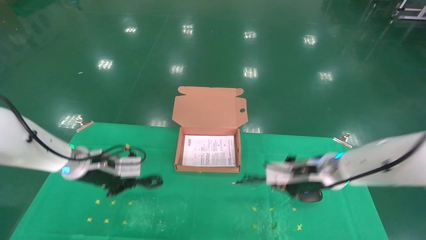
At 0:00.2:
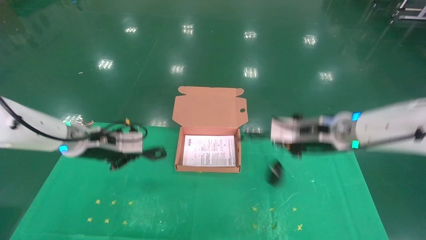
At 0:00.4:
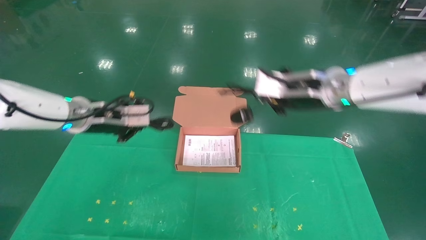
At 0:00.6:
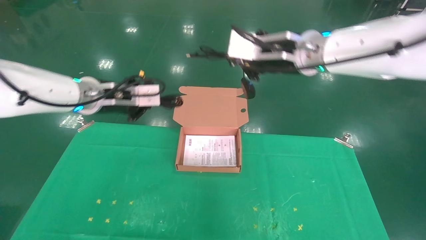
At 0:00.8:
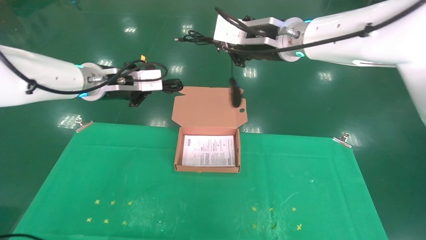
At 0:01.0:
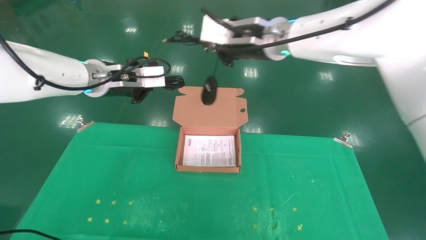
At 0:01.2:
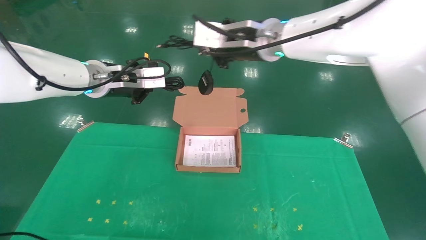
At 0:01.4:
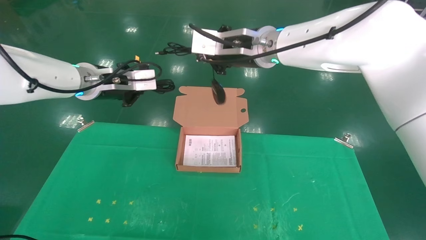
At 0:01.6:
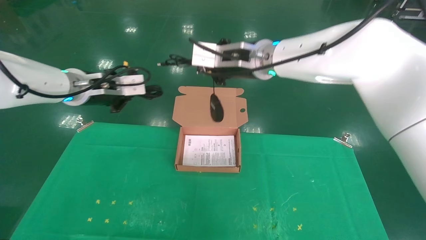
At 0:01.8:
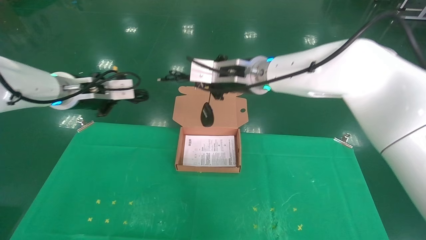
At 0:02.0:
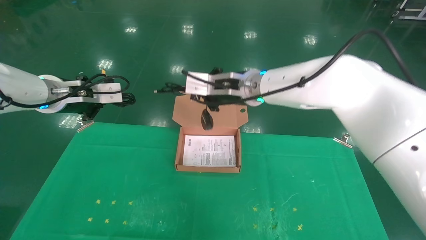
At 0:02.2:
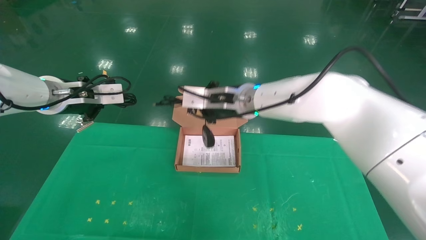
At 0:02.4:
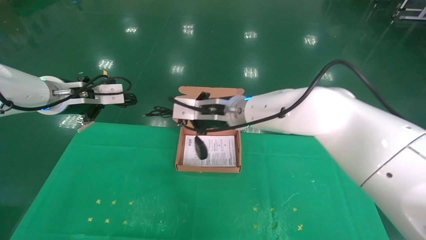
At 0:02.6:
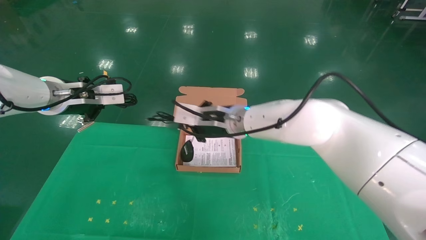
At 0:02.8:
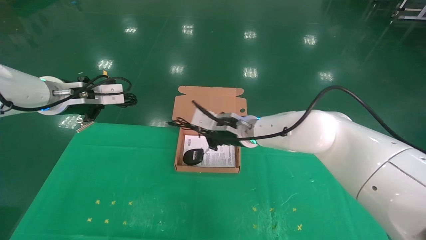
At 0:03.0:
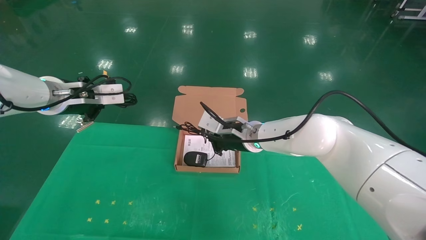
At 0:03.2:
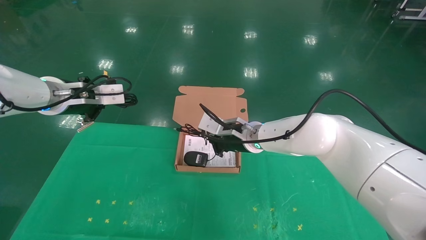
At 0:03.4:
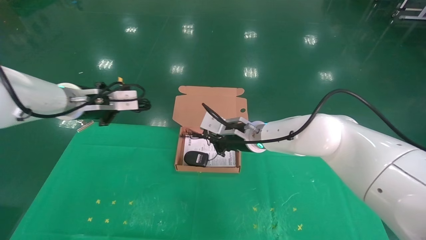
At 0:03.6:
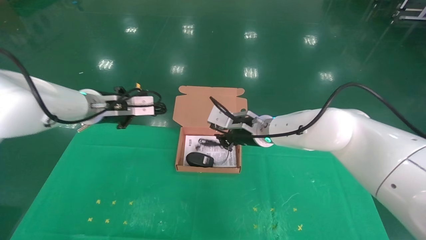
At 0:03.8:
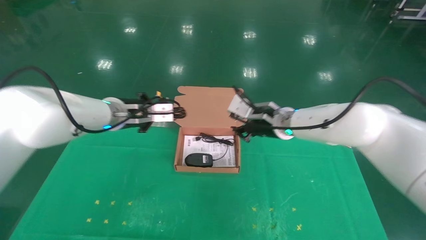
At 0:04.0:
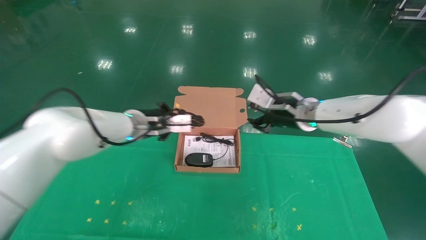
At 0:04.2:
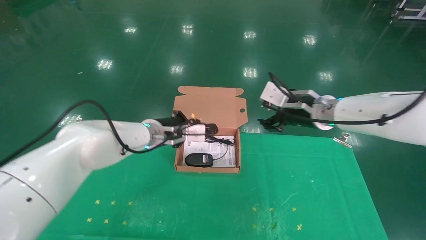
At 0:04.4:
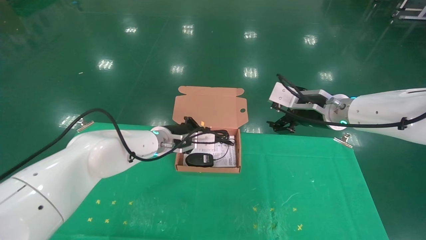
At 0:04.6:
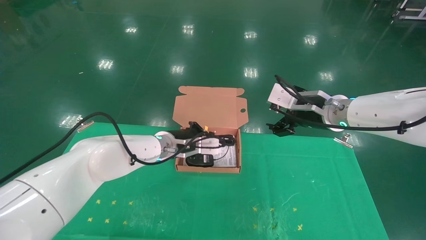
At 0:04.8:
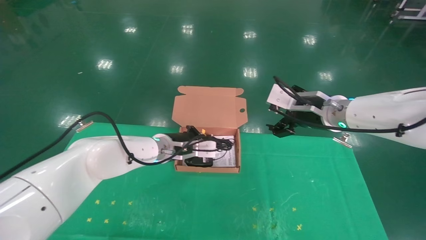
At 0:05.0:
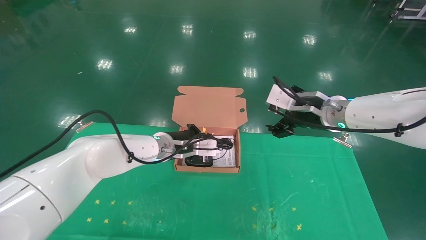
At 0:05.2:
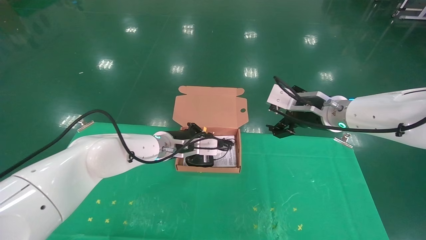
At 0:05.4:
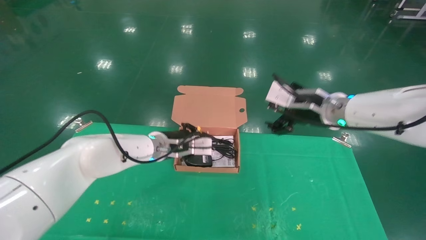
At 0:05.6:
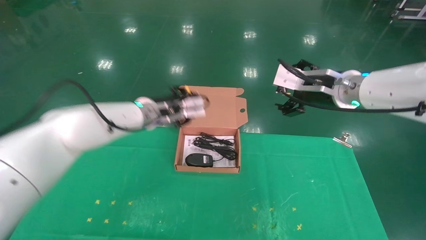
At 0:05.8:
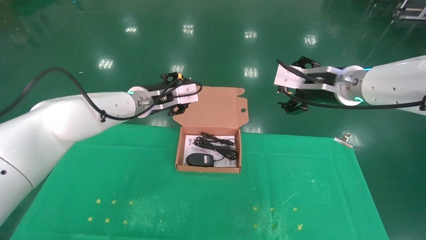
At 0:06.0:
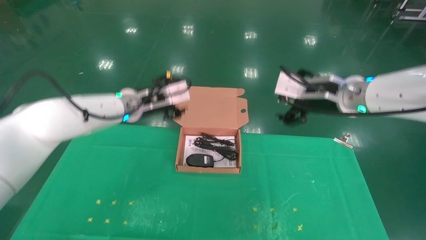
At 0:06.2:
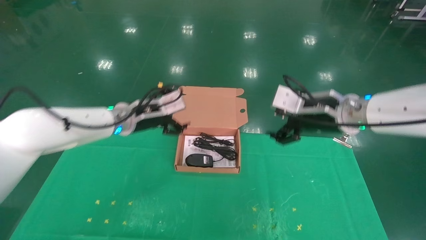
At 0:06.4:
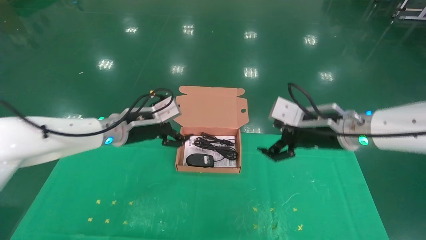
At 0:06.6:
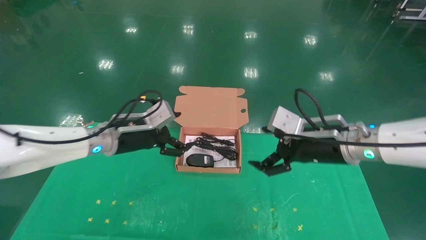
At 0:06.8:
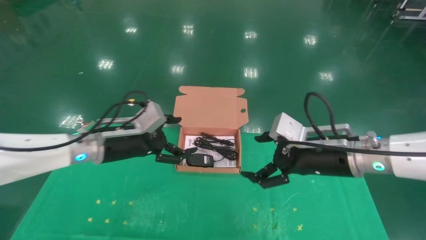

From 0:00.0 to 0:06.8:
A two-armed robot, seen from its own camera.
Task of the whole recording: grasp data cable left put into box grasp mouse right put into box.
Step, from 0:00.4 to 0:05.4: Place the mouse and power cord into the box.
From 0:00.0 to 0:01.4: The left gripper shifts roughly 15 cm upward, while the right gripper goes about 25 cm upward and to the left.
From 0:01.4 to 0:02.8: The left gripper goes approximately 5 cm to the left. Meanwhile the right gripper travels downward by about 20 cm.
From 0:02.8 to 0:04.0: The left gripper moves to the right, downward and forward, about 20 cm; the right gripper goes roughly 15 cm to the right, and opens.
From 0:04.0 to 0:05.4: The right gripper shifts by some 5 cm, and opens its fingers.
From 0:05.4 to 0:06.8: The right gripper shifts approximately 10 cm backward and downward. The left gripper shifts some 10 cm to the left and backward, and opens.

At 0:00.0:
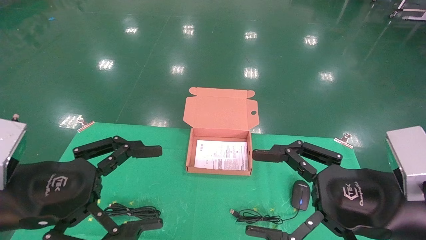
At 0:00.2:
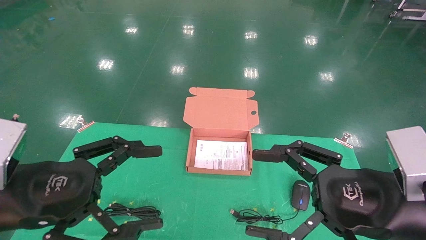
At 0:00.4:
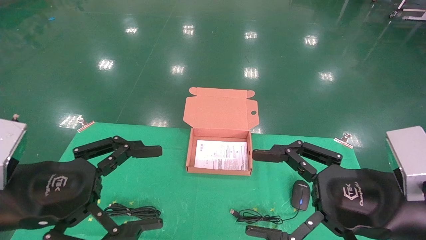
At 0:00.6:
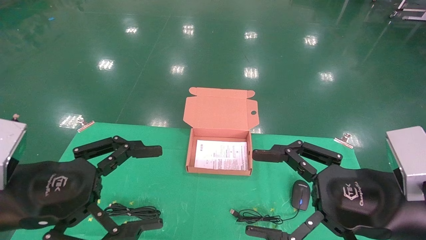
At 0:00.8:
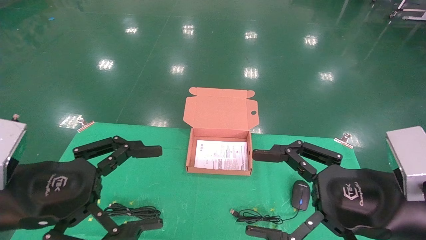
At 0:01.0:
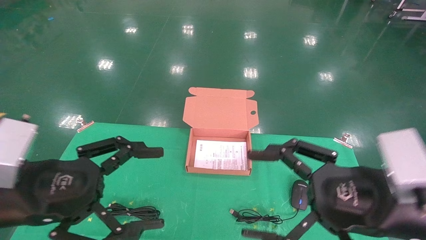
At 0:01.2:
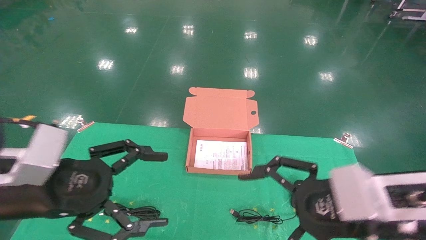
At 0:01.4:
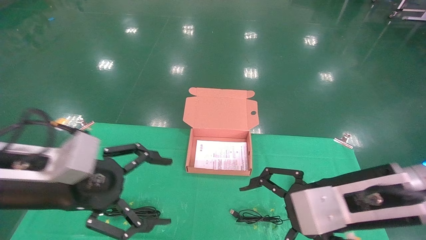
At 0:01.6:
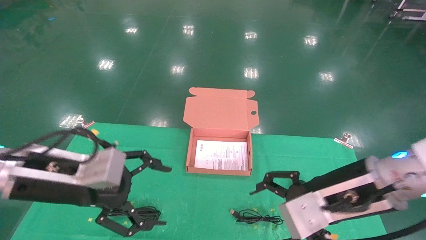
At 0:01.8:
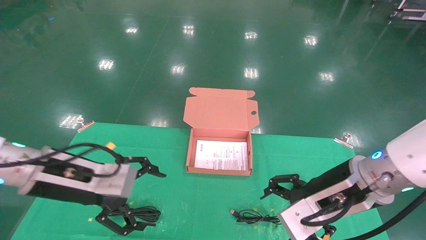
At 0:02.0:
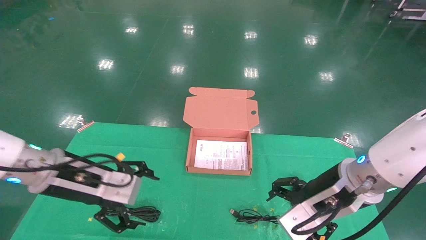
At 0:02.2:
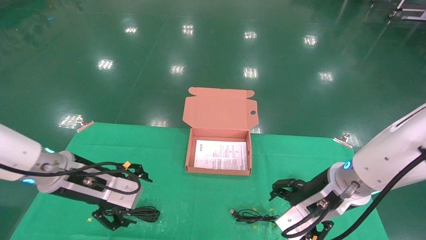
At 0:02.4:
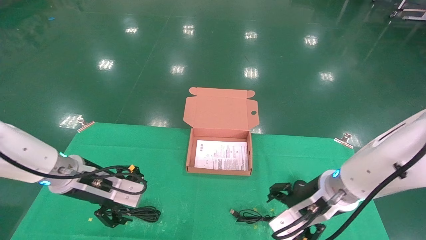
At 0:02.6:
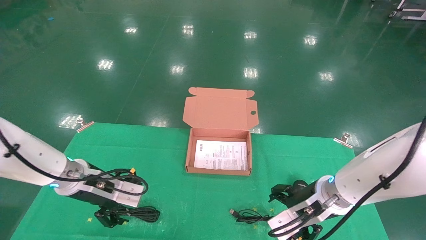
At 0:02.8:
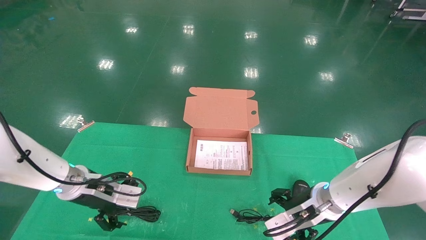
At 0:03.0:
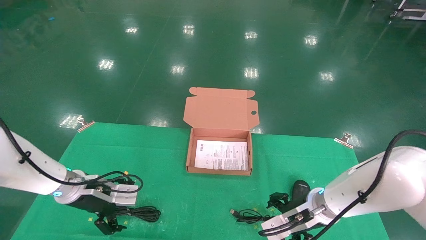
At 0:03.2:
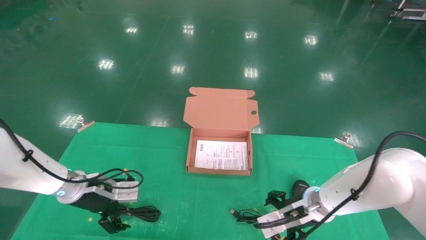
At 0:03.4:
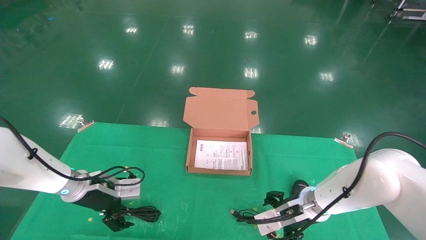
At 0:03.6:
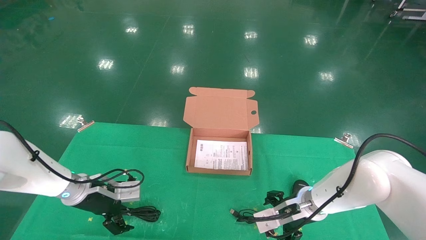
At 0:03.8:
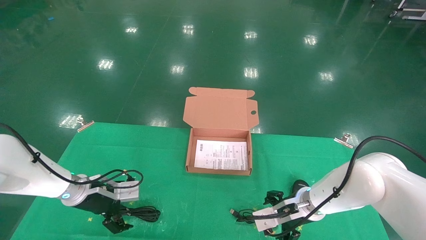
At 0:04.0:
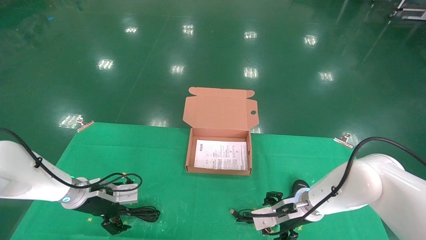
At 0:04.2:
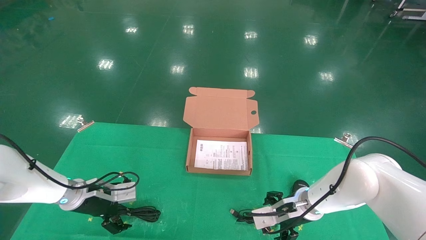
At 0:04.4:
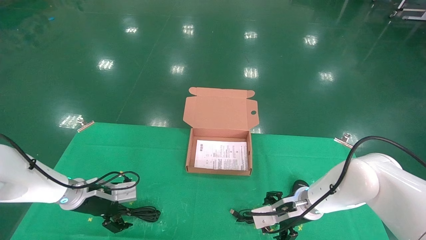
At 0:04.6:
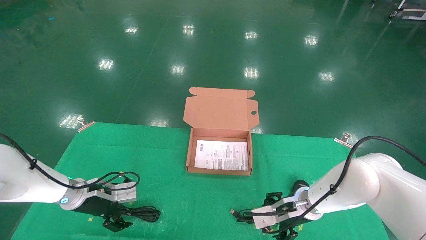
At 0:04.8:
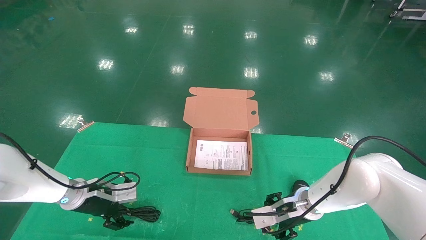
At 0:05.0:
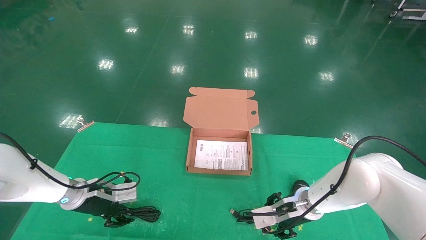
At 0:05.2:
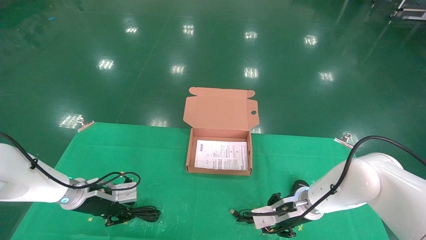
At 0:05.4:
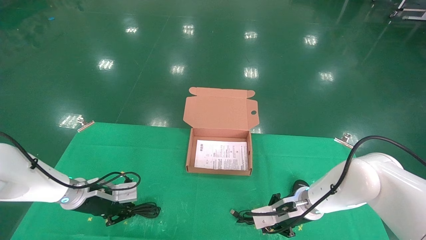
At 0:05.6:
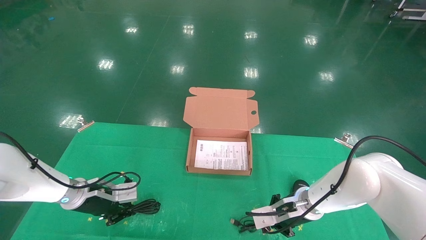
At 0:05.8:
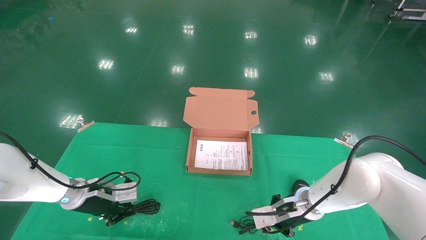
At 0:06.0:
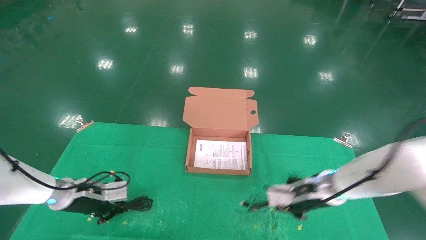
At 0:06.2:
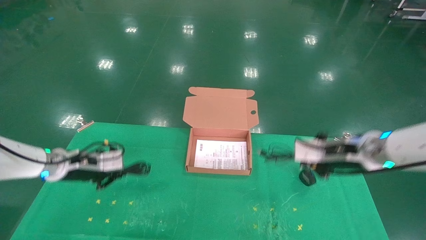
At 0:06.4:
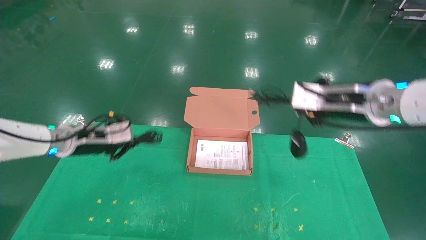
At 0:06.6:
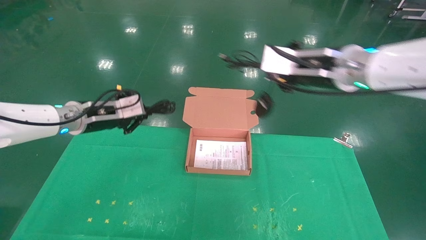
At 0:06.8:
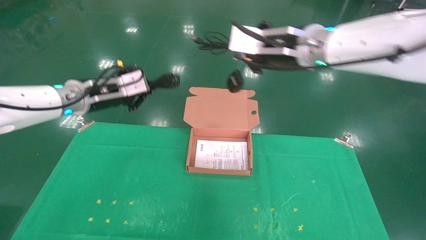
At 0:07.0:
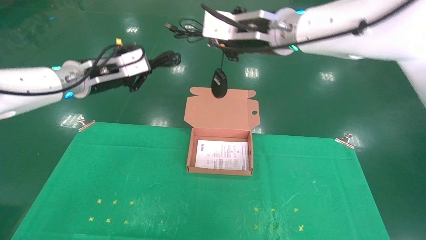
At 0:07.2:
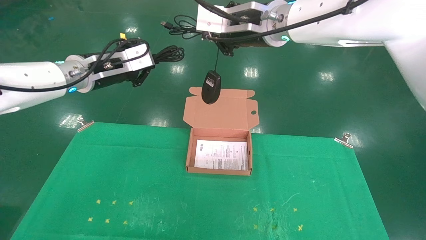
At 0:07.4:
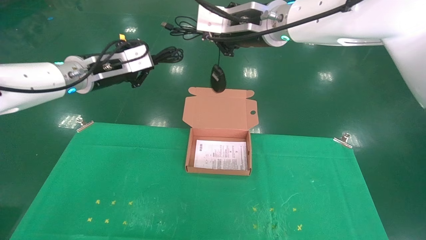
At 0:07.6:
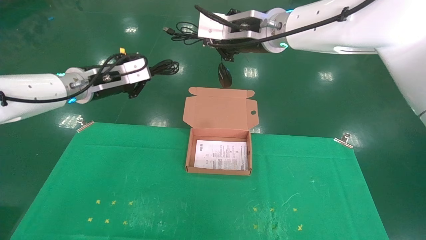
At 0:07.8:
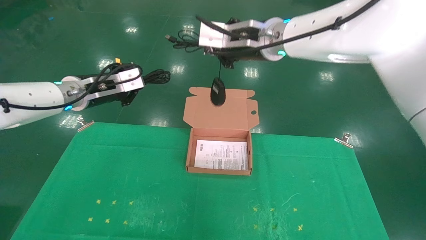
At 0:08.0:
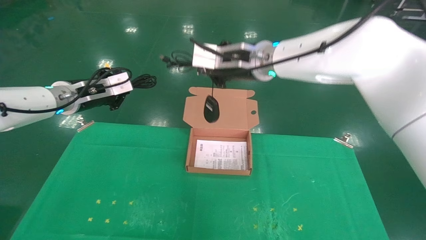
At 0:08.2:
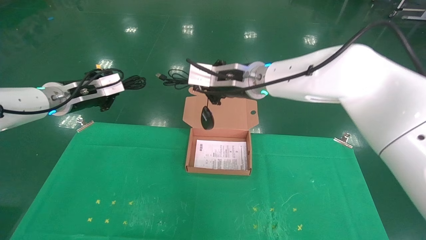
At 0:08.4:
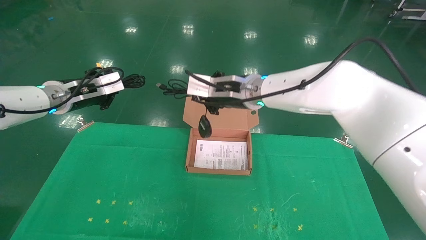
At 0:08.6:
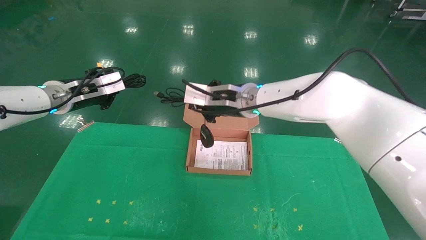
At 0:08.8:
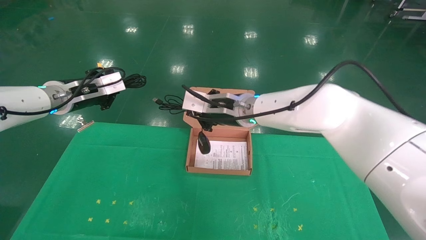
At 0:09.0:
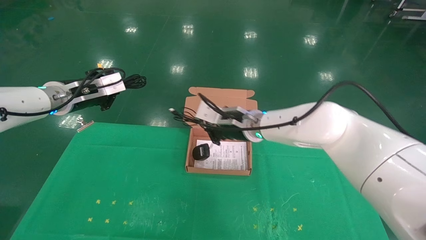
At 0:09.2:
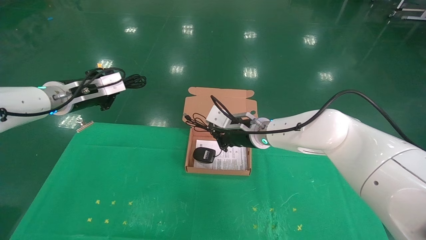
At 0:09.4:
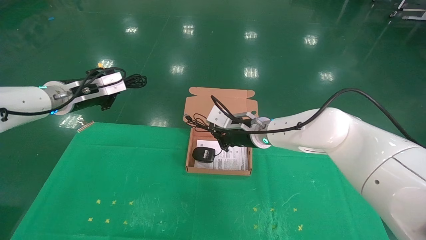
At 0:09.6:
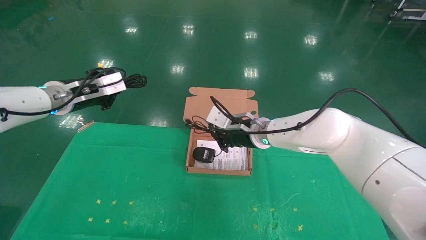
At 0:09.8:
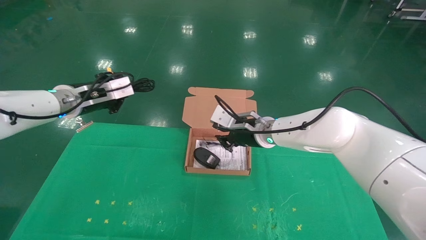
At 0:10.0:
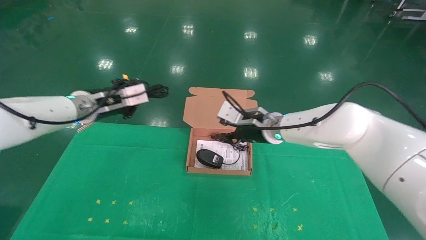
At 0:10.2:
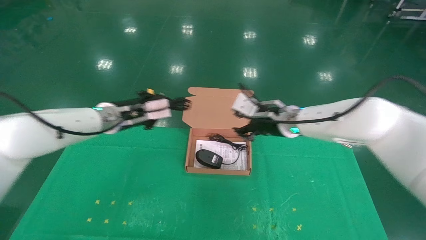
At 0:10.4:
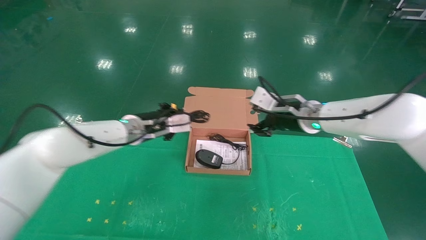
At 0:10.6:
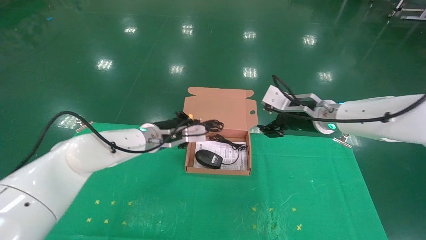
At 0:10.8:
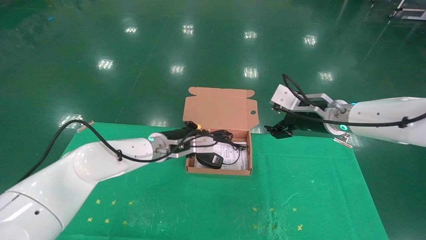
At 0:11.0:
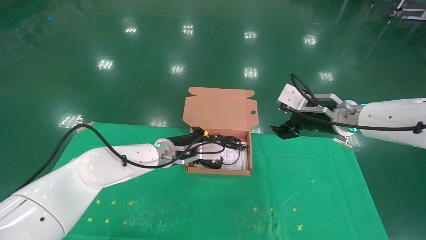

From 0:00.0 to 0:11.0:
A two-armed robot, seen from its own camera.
Task of the whole recording: grasp data cable left put into box grasp mouse right put into box.
Step, from 0:01.2 to 0:05.4: Grab and pick up both the mouse and power cord from the accessory packaging area at the same time.
From 0:00.0 to 0:01.6: Both grippers move forward, some 5 cm.
From 0:01.6 to 0:03.2: The right gripper is displaced downward and forward by roughly 20 cm; the left gripper goes roughly 20 cm forward and downward.
From 0:03.2 to 0:04.8: The left gripper moves roughly 5 cm.
From 0:04.8 to 0:06.2: The left gripper is displaced upward by roughly 10 cm, and closes its fingers. The right gripper shifts roughly 15 cm upward, and closes.
From 0:06.2 to 0:07.8: The right gripper heads to the left and upward, covering approximately 25 cm. The left gripper shifts about 15 cm upward.
From 0:07.8 to 0:09.4: The right gripper goes some 20 cm downward.
From 0:09.4 to 0:11.0: The left gripper travels to the right and downward by some 25 cm. The right gripper shifts about 15 cm to the right, and opens up.
